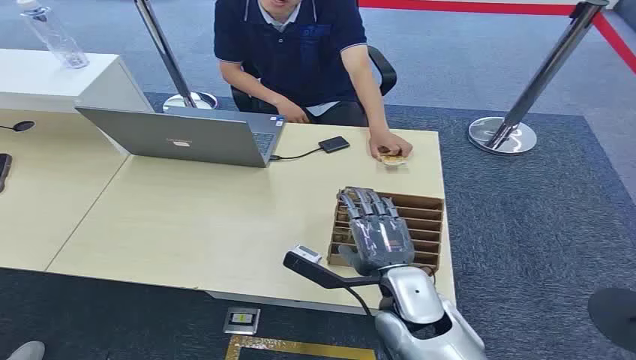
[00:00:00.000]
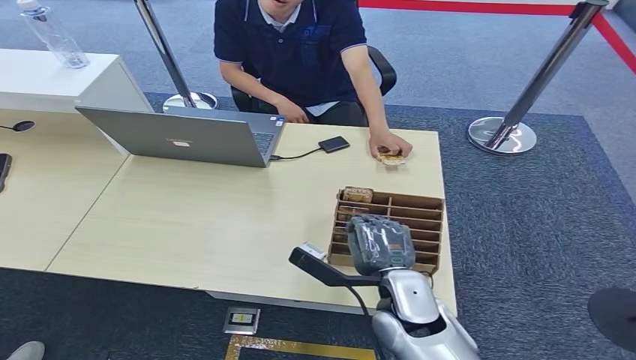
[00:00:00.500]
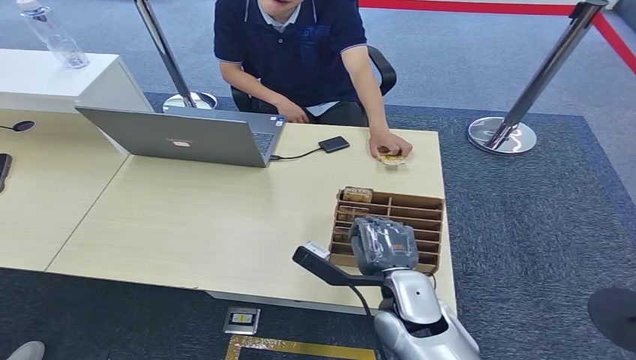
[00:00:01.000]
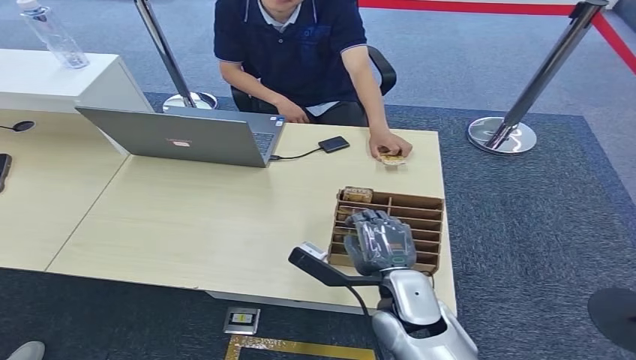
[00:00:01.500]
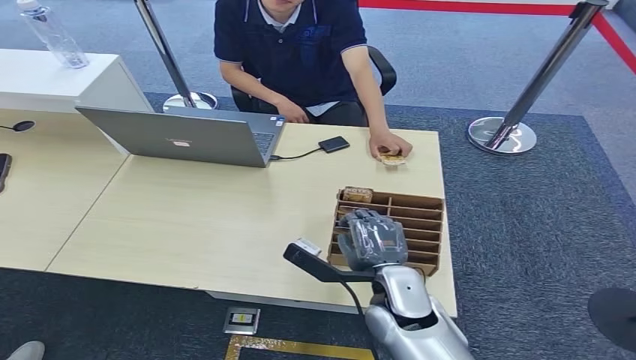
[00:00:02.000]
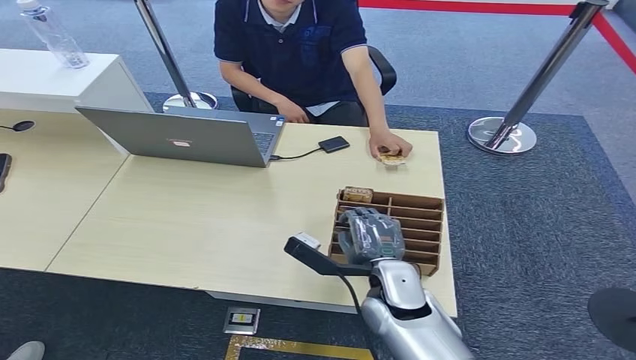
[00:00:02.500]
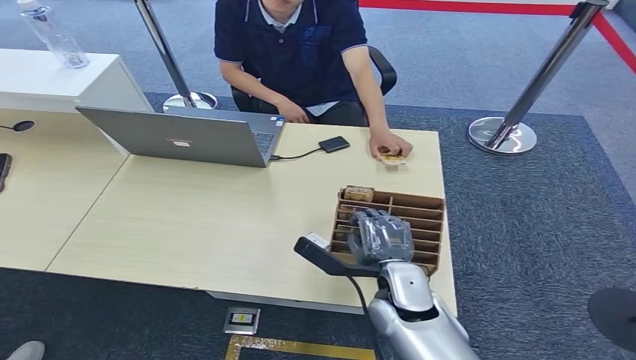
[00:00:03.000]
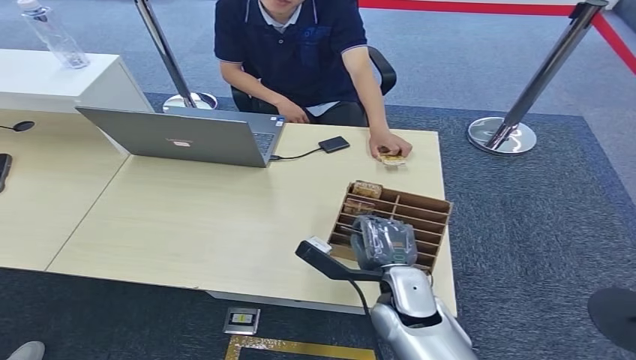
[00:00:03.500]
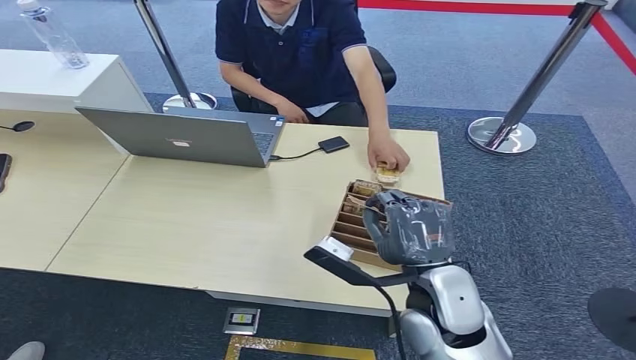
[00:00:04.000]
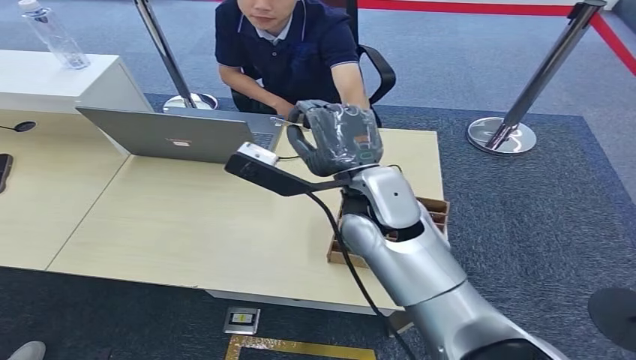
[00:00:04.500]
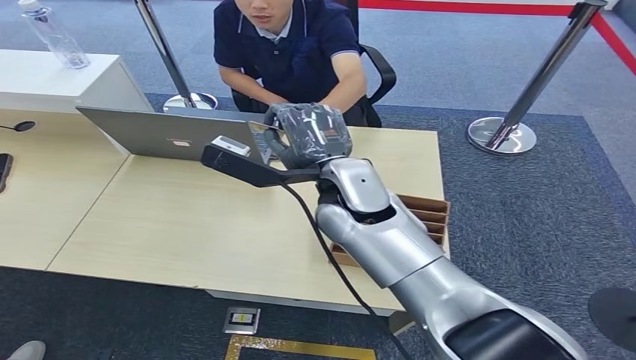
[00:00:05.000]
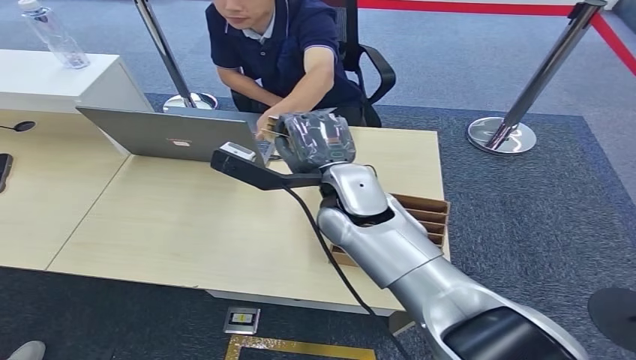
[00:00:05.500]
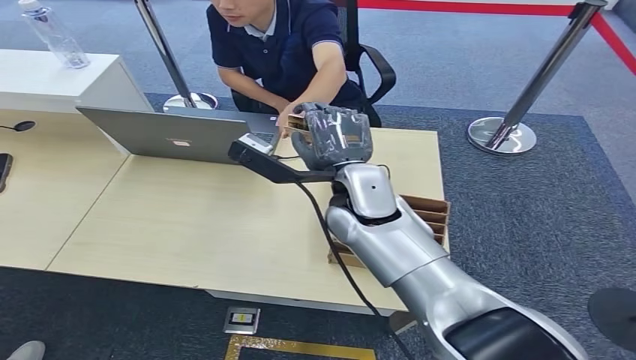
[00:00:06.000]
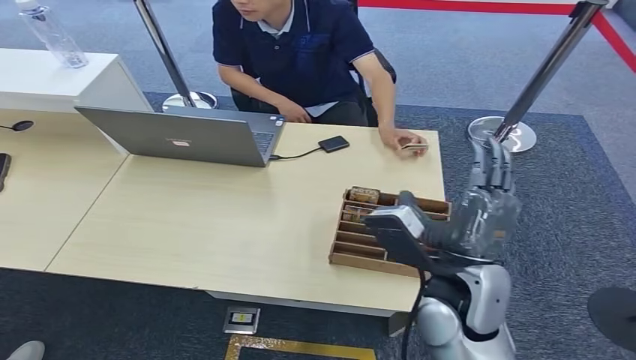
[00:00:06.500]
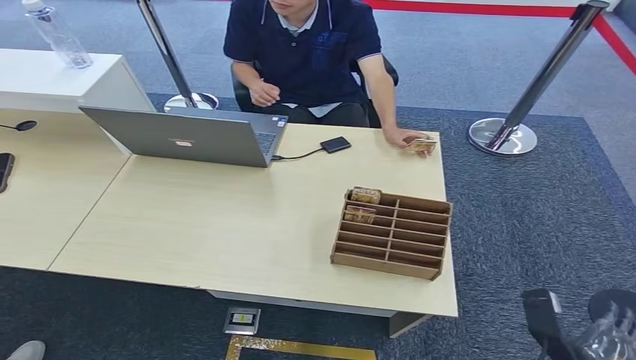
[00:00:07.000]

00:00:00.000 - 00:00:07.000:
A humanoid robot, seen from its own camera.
Task of the whole recording: Pick up the card and hand it over to the target person.
Step, 00:00:00.000 - 00:00:04.000: Pick up the key card from the card box.
Step, 00:00:04.500 - 00:00:07.000: Hand the key card to the target.
00:00:02.000 - 00:00:03.500: There are only small adjustments of the hands.
00:00:03.500 - 00:00:05.000: The right hand shifts some 25 cm upward, forward and to the left.
00:00:05.000 - 00:00:07.000: The right hand is displaced backward, downward and to the right by approximately 50 cm.
